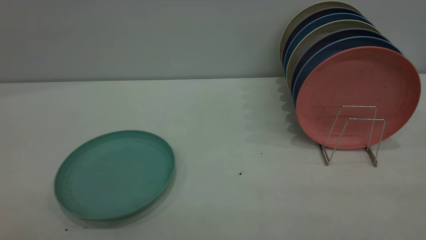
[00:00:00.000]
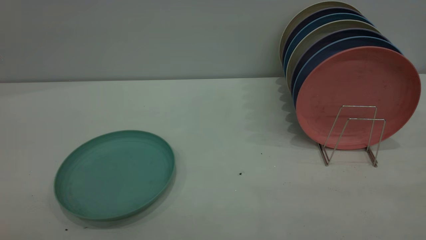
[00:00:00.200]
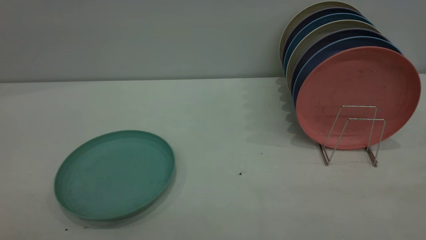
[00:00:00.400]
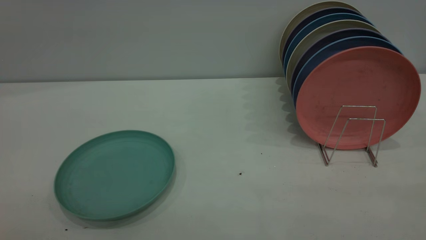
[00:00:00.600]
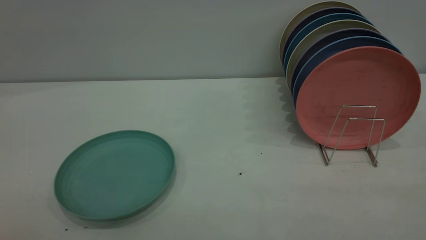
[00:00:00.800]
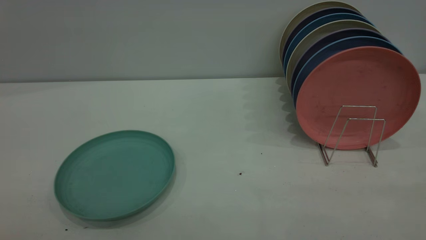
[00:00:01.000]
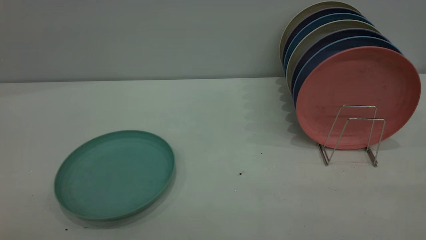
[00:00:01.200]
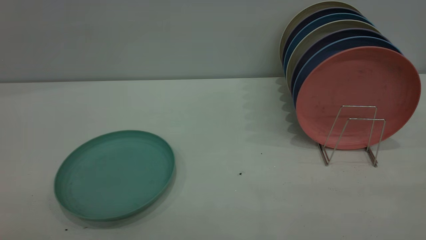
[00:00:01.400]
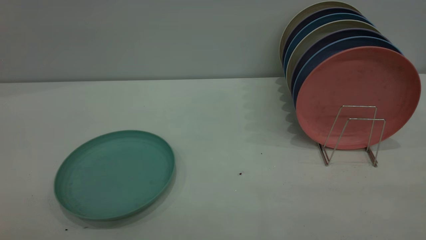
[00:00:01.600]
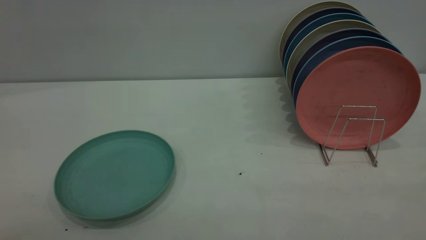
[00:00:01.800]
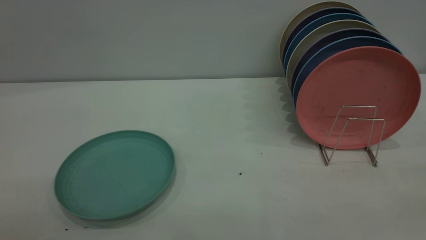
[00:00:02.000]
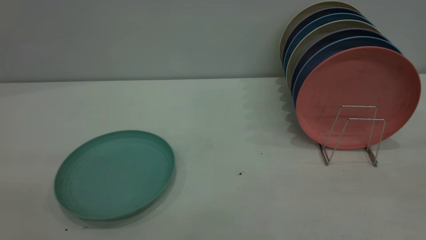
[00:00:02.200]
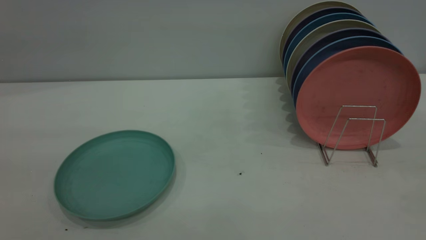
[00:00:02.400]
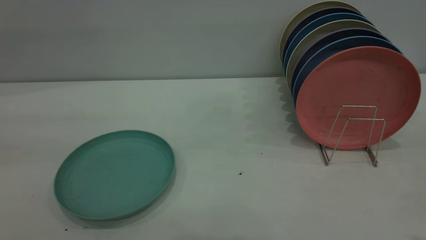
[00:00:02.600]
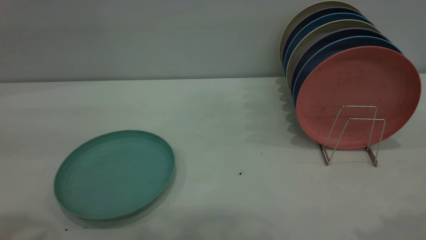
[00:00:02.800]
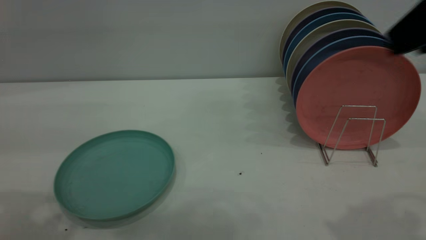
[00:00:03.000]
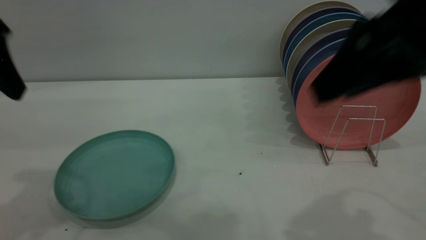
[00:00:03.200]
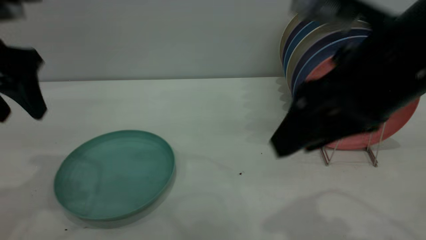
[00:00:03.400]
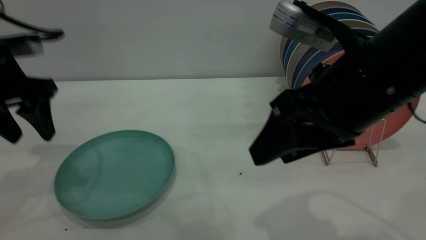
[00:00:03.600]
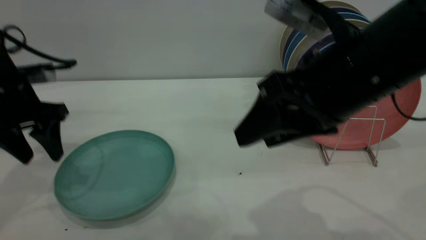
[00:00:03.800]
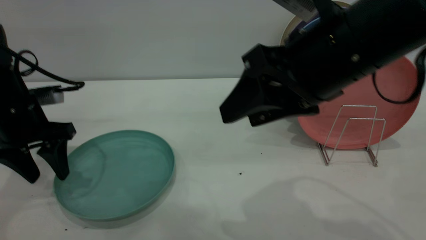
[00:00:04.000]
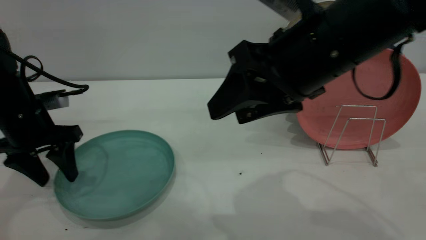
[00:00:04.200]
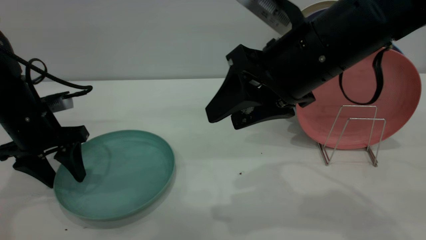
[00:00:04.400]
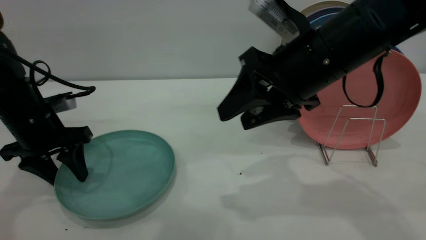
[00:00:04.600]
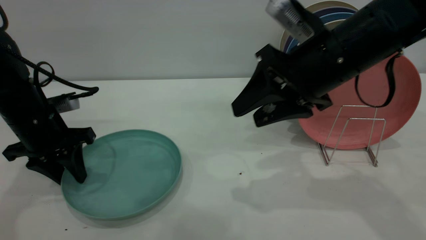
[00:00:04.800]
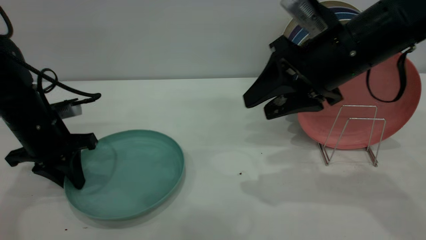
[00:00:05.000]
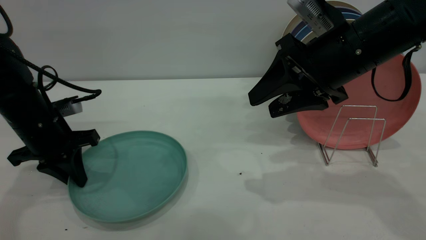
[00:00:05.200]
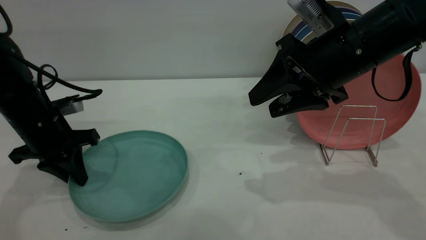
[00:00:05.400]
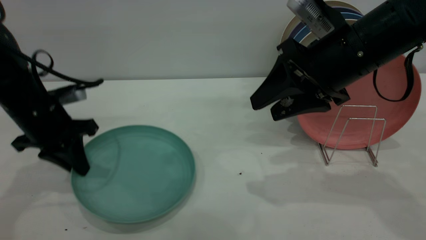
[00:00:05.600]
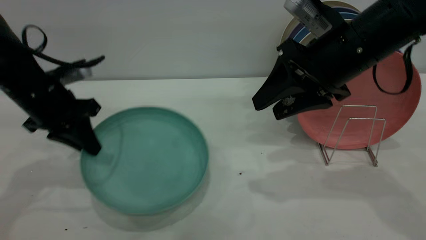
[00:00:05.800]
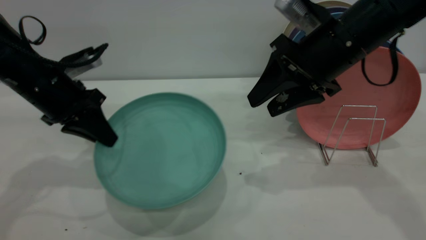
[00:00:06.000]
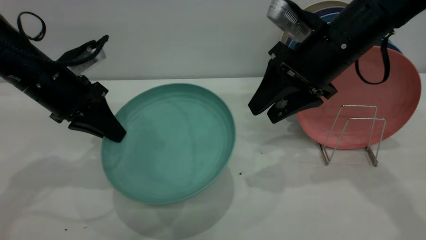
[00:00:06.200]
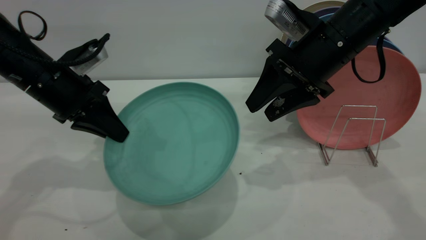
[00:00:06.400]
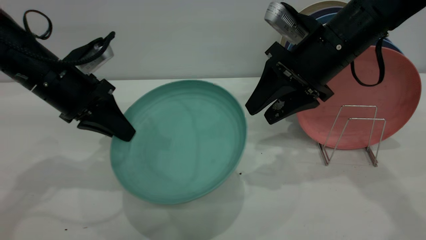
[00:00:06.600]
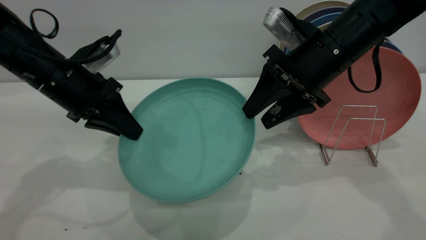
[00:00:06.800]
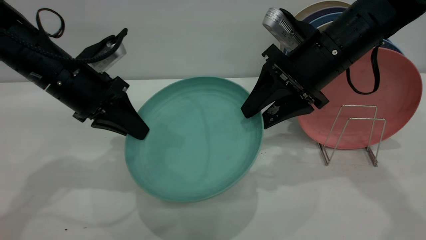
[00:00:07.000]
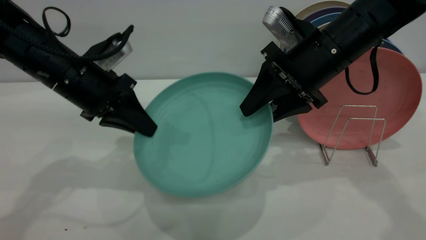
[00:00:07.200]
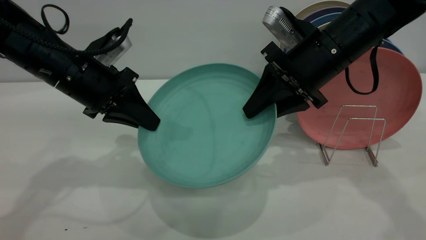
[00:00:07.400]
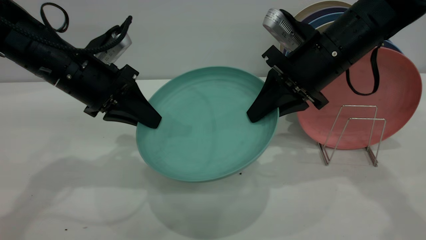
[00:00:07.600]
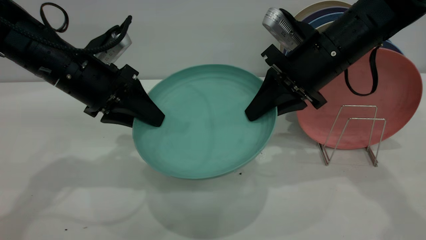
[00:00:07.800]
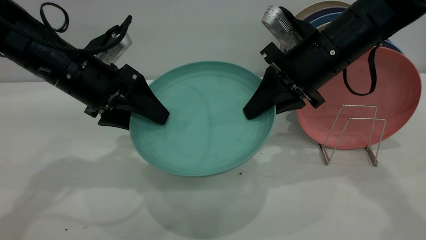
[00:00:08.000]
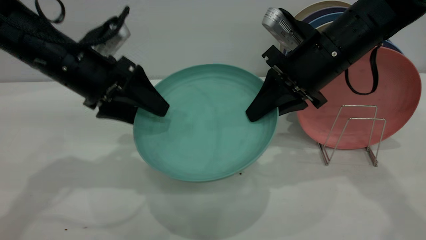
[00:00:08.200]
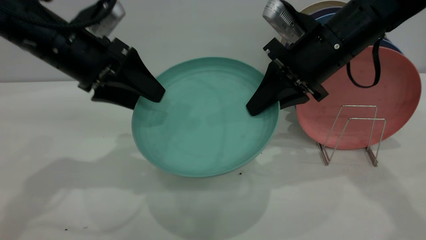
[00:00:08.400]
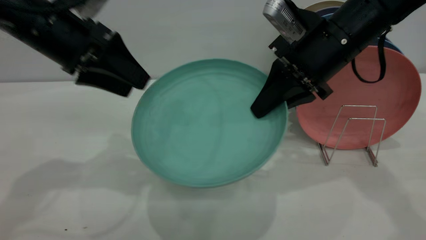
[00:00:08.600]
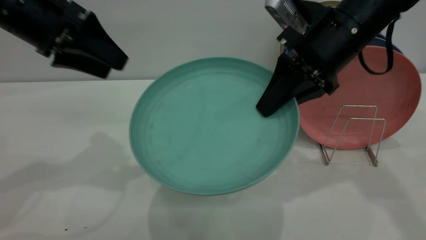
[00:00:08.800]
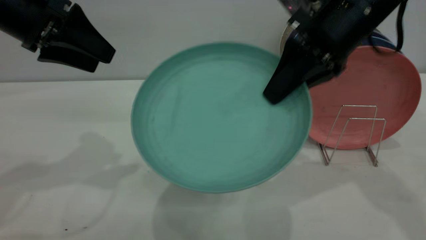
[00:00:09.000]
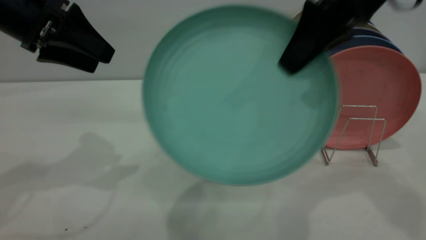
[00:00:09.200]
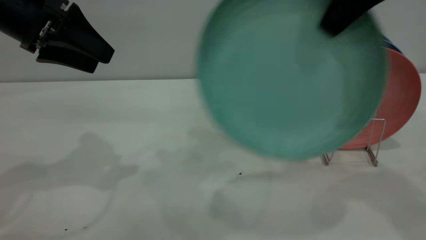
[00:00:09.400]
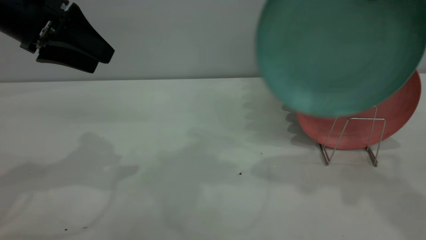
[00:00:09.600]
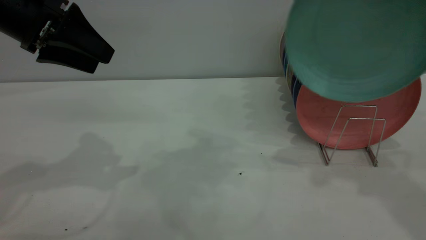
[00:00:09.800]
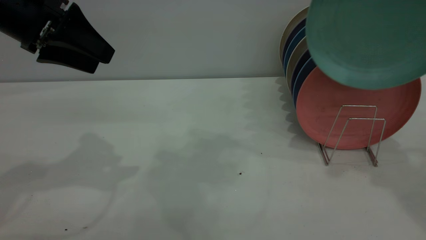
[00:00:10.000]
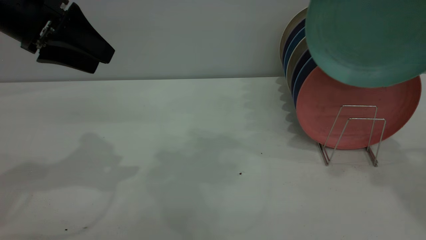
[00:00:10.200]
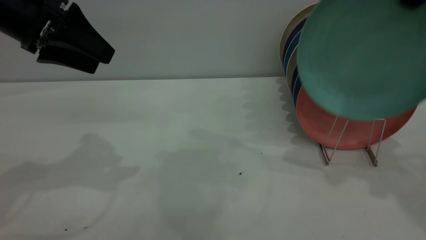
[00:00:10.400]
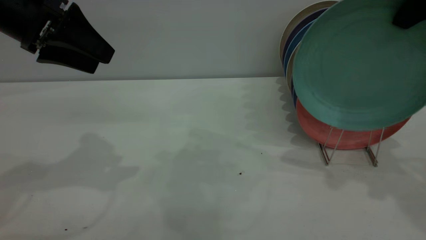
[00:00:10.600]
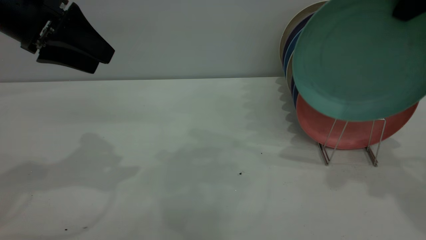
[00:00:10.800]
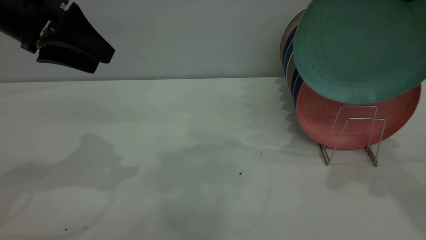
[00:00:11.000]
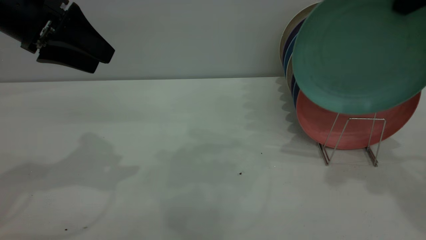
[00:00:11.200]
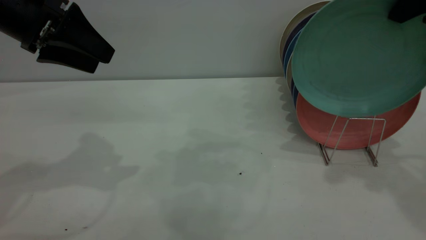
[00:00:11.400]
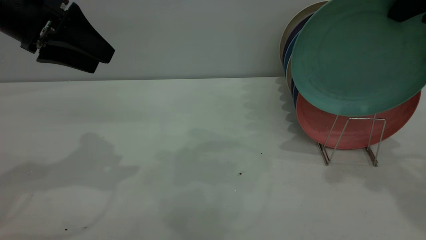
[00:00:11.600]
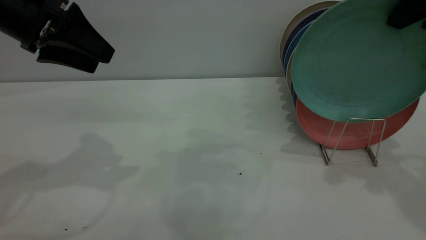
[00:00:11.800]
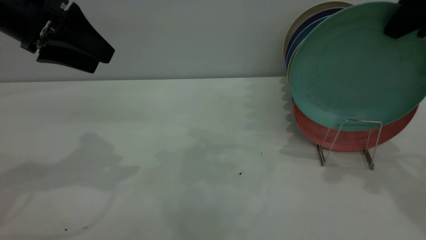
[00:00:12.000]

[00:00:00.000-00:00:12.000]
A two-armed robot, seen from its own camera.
Task of the whole recording: the left gripper grasp the green plate, the left gripper pass the green plate to the right gripper, and the right gripper place the green plate on the plate rack.
Step, 00:00:00.000 to 00:00:05.600: Pick up the plate with the left gripper.
Step, 00:00:05.800 to 00:00:08.400: Pass the plate from the left gripper to the right gripper.
00:00:00.000 to 00:00:01.600: Both grippers stay put.
00:00:01.600 to 00:00:03.000: The right gripper shifts about 25 cm forward.
00:00:03.000 to 00:00:04.400: The left gripper goes approximately 25 cm downward and forward. Meanwhile the right gripper shifts some 20 cm to the left, downward and forward.
00:00:04.400 to 00:00:06.000: The left gripper changes place by about 5 cm, and closes up. The right gripper moves forward, some 5 cm.
00:00:06.000 to 00:00:07.600: The right gripper closes. Meanwhile the left gripper ends up approximately 5 cm from where it was.
00:00:07.600 to 00:00:09.000: The left gripper shifts about 10 cm upward and to the left, and opens its fingers. Meanwhile the right gripper travels upward by about 5 cm.
00:00:09.000 to 00:00:10.400: The right gripper travels to the right and upward by approximately 15 cm.
00:00:10.400 to 00:00:12.000: The grippers make only small movements.

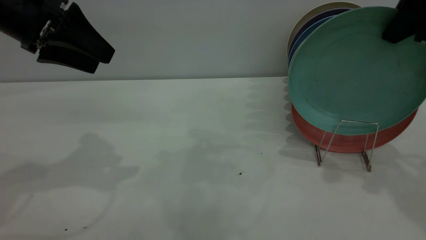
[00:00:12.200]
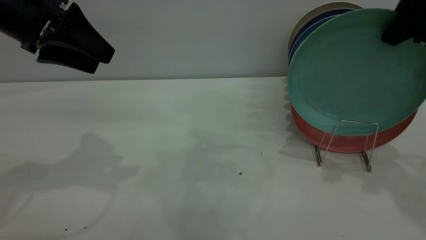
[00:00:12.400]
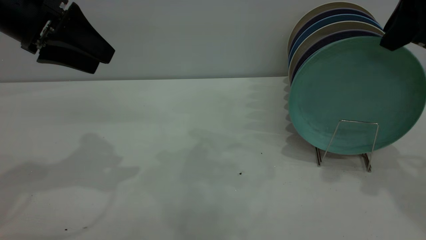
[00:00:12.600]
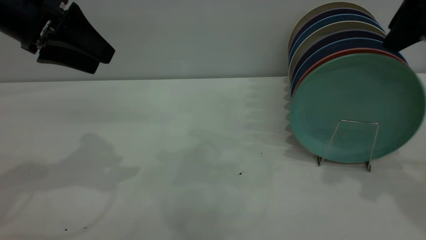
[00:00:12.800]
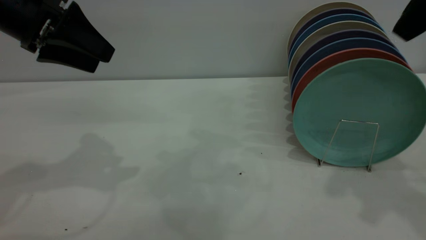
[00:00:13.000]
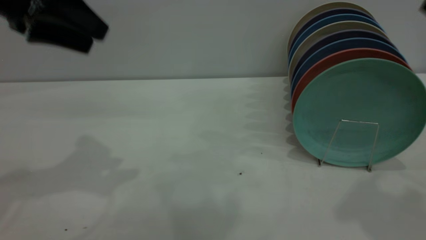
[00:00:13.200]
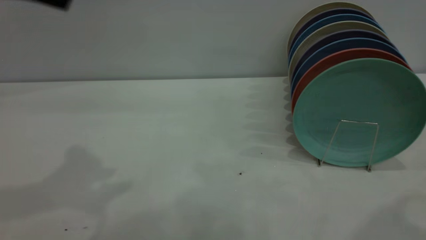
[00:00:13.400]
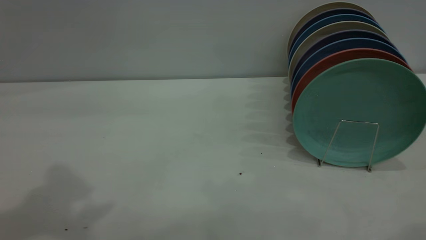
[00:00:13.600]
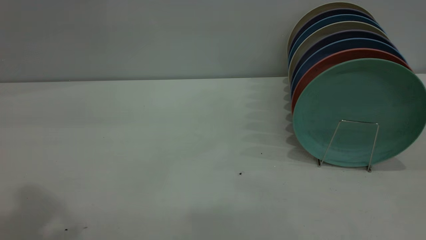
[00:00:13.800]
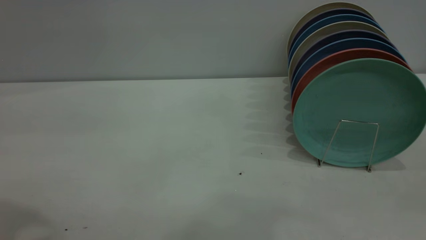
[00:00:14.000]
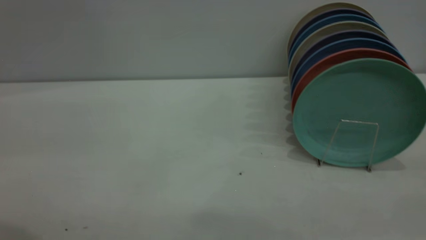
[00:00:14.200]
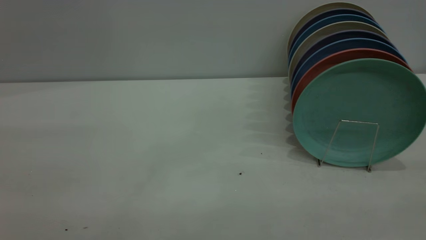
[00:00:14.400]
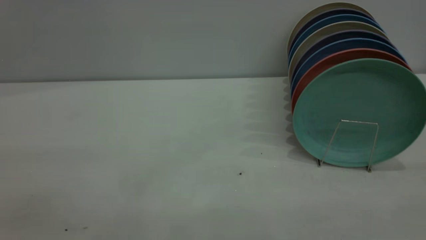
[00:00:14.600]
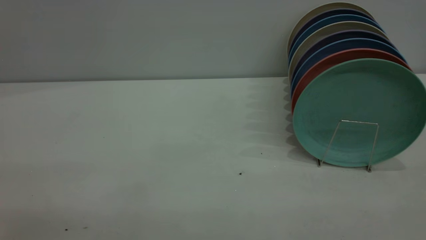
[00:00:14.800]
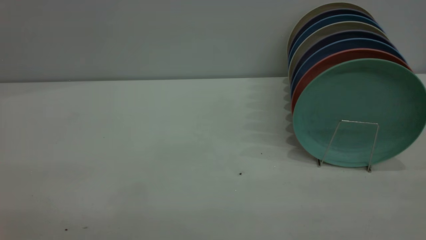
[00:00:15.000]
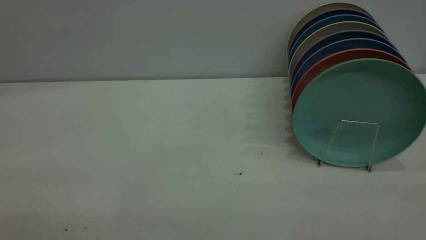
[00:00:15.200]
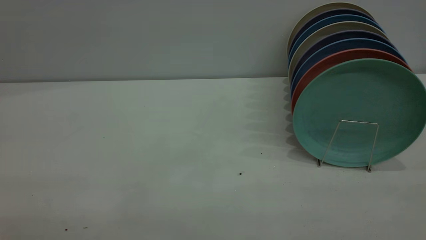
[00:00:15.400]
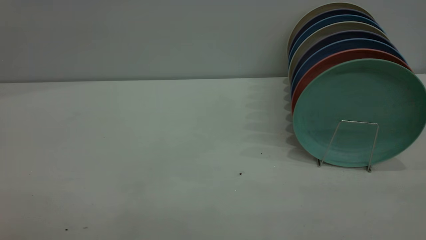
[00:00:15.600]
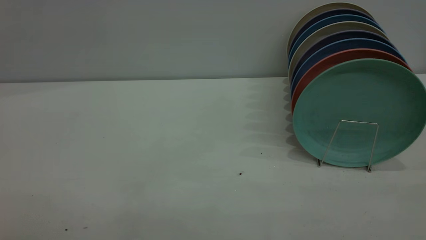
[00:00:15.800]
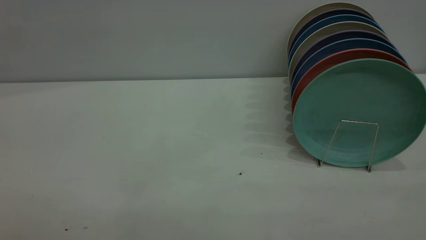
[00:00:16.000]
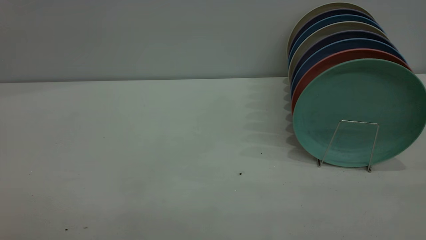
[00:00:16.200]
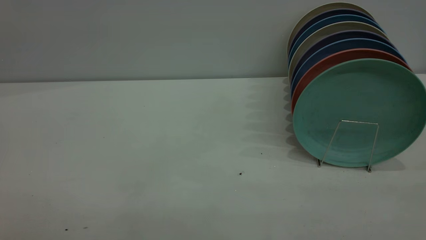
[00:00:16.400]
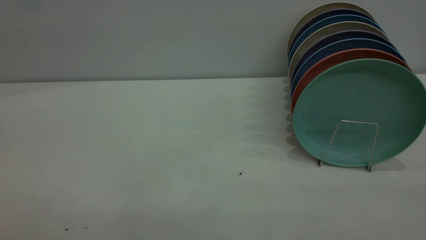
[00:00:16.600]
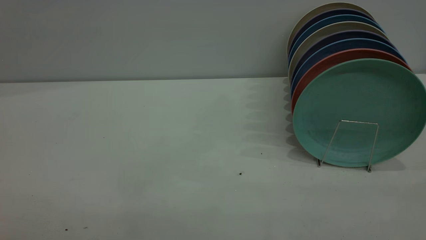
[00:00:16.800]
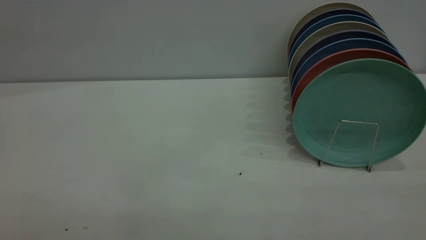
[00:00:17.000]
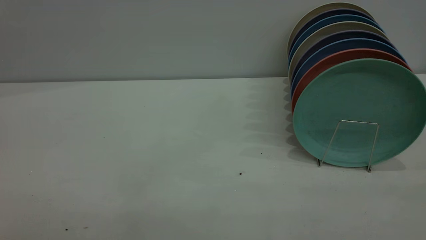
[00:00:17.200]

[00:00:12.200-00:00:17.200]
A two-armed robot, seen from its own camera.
Task of the whole recording: the left gripper grasp the green plate, the left gripper pass the green plate to the right gripper, and the right gripper place the green plate on the plate rack.
00:00:12.200 to 00:00:13.800: The left gripper heads upward and backward, covering roughly 20 cm, while the right gripper goes roughly 25 cm backward and upward, and opens.
